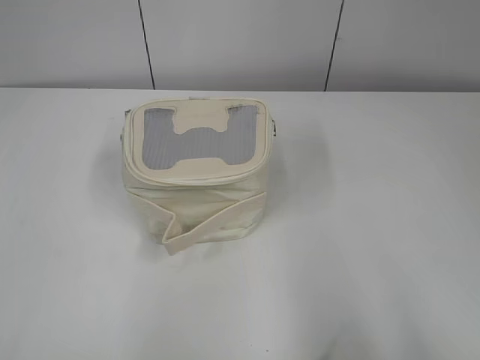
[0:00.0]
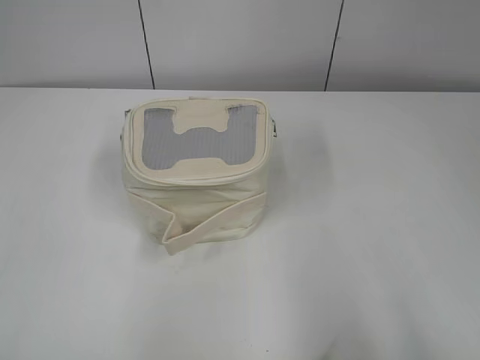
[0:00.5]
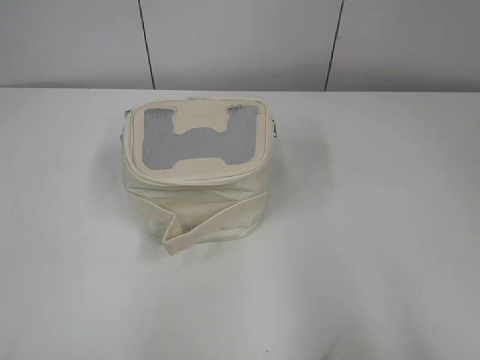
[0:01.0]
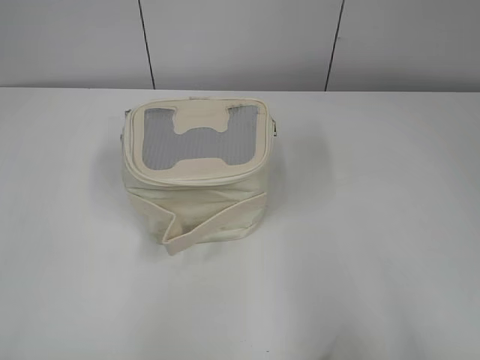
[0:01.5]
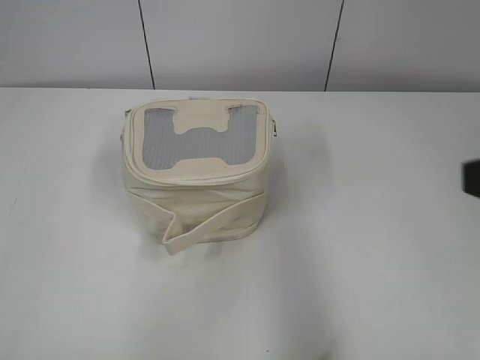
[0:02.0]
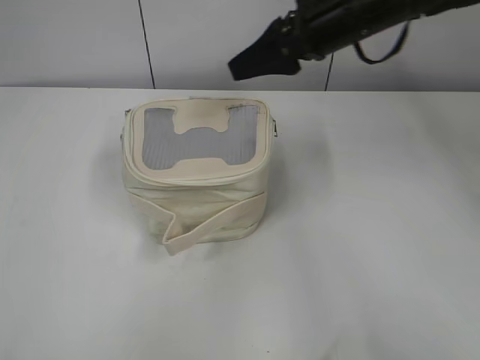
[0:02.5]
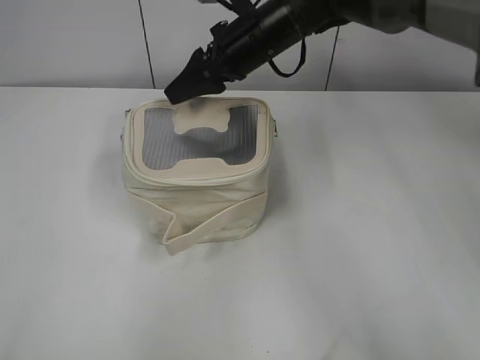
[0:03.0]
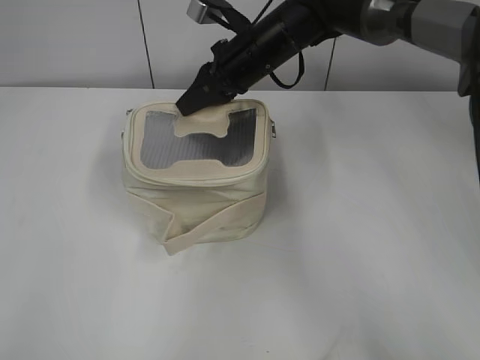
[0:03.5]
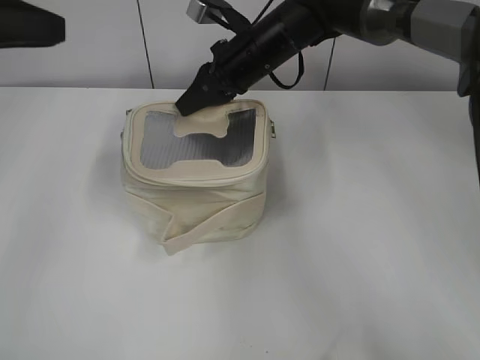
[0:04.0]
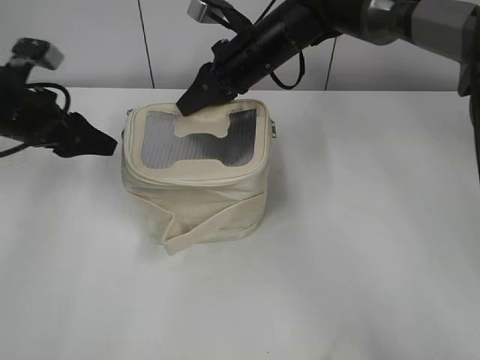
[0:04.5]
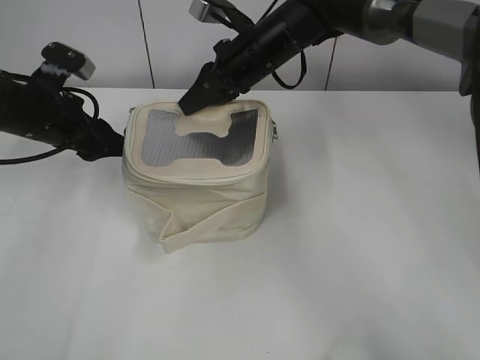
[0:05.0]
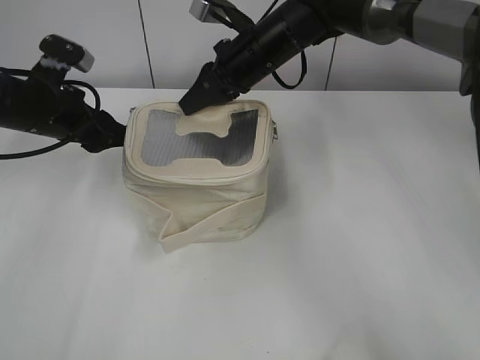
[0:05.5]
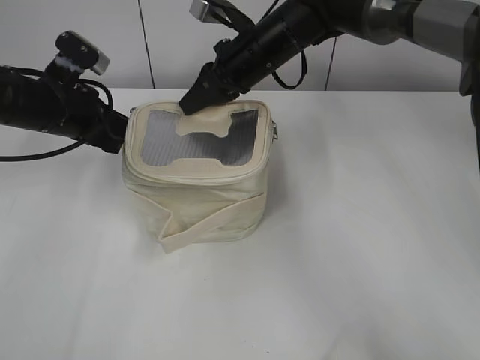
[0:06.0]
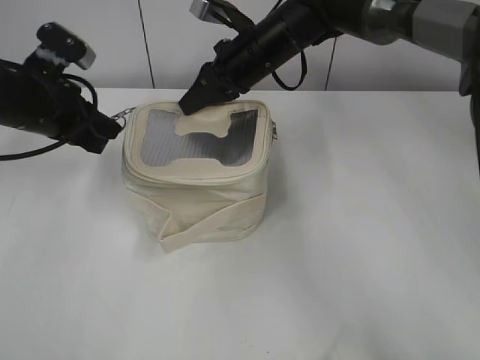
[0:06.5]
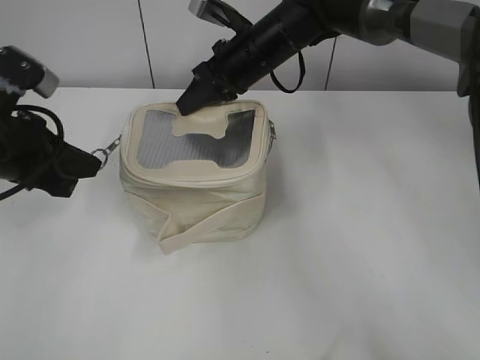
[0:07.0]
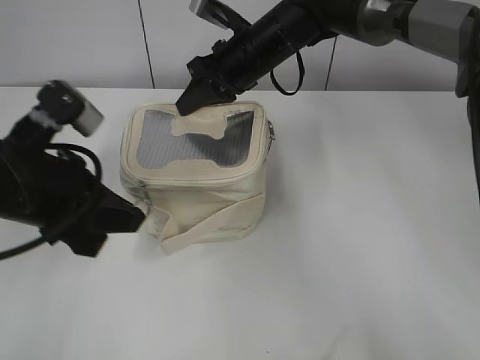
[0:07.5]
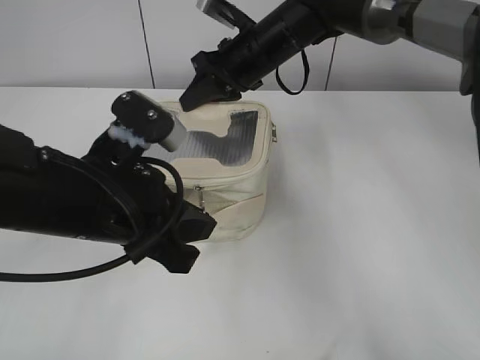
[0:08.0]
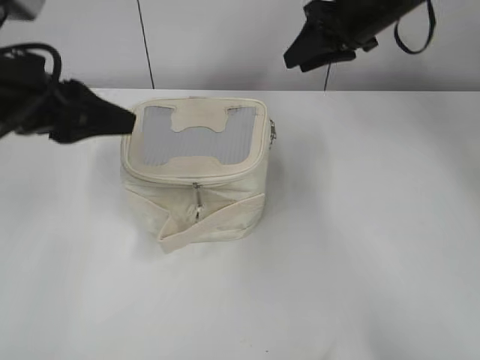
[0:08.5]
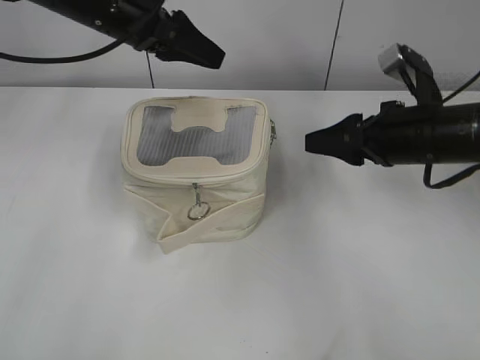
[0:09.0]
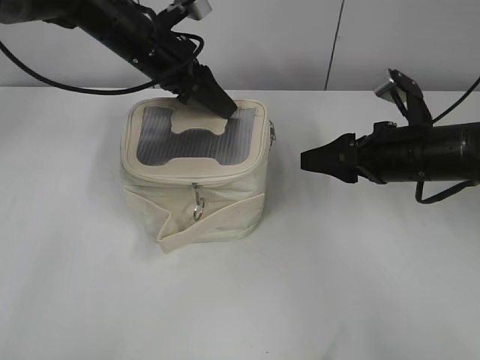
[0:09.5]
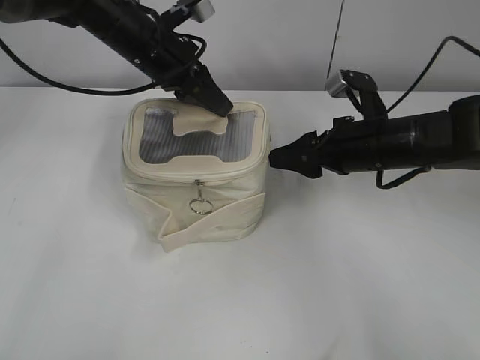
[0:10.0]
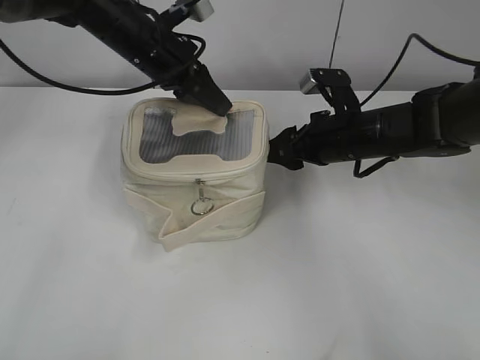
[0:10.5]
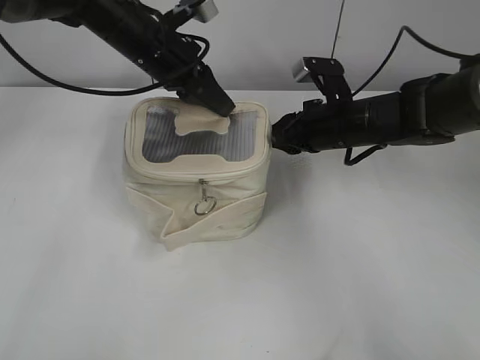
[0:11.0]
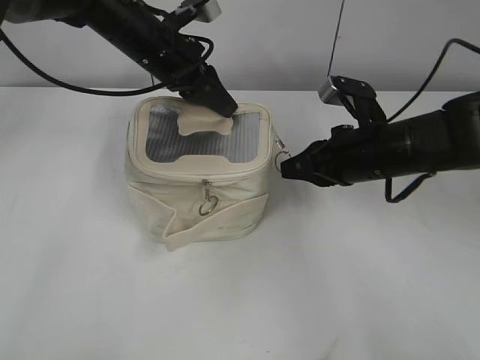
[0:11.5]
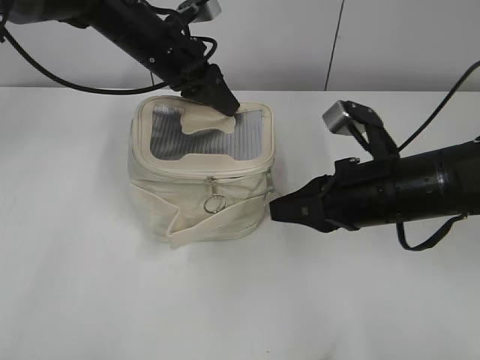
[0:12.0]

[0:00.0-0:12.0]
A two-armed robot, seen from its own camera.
Step, 0:00.0 to 0:08.0: Zip up the bag with your left hand.
0:02.0 to 0:04.0: The right gripper travels forward and to the left by about 40 cm, and closes. Meanwhile the left gripper travels forward by roughly 25 cm.
0:04.0 to 0:06.0: The left gripper travels downward and forward by roughly 20 cm, and opens, then closes once more.
0:06.0 to 0:08.0: The left gripper heads backward and to the right, covering roughly 20 cm.
0:08.0 to 0:10.0: The right gripper shifts approximately 20 cm to the right, backward and downward, and opens its fingers, while the left gripper heads forward, covering about 25 cm, and opens and closes again.
0:10.0 to 0:12.0: The right gripper goes about 10 cm backward, and closes its fingers.

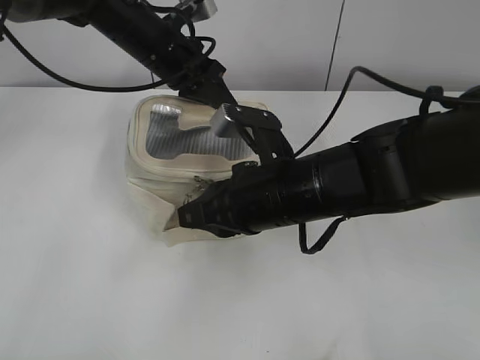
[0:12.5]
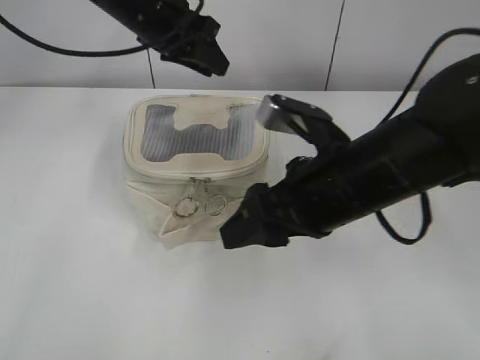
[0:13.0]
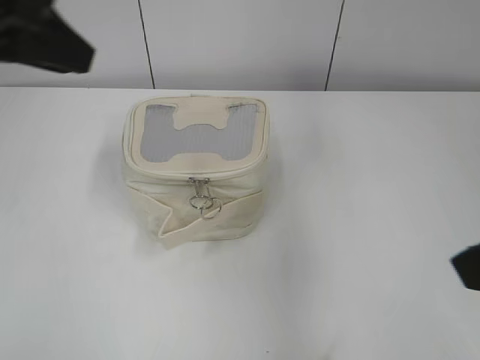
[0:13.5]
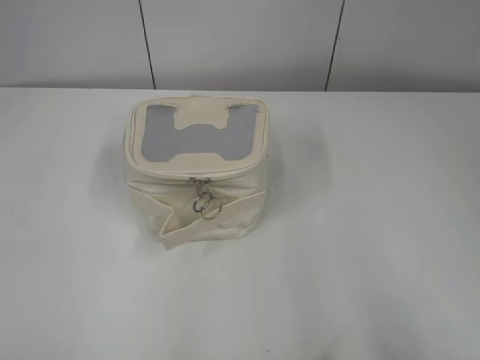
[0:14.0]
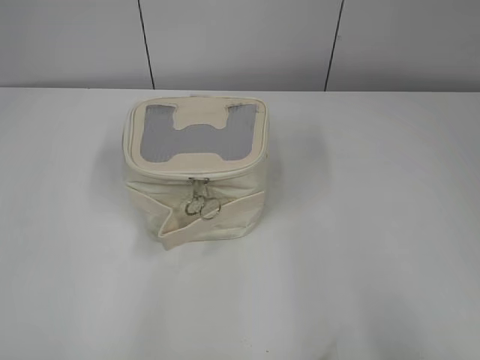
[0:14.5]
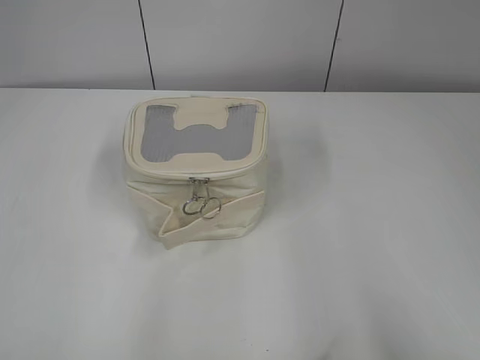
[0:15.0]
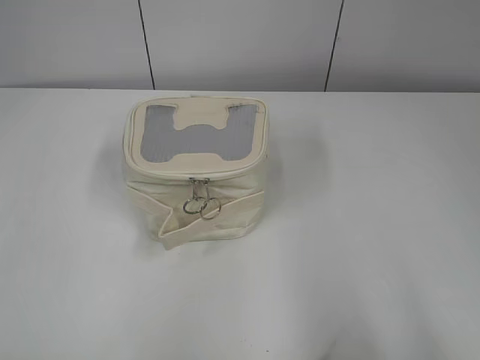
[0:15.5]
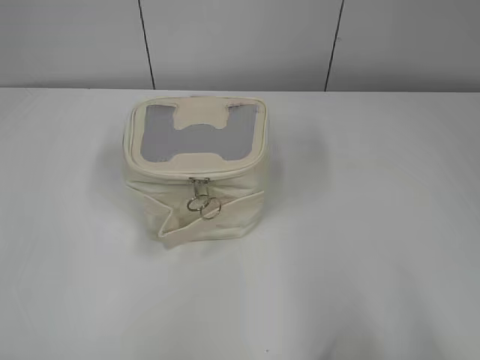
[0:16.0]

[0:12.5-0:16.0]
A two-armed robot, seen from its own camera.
0:12.5 to 0:14.5: The left gripper shifts approximately 50 cm backward and to the left, and opens, while the right gripper travels to the right, backward and upward by approximately 40 cm, and opens its fingers.

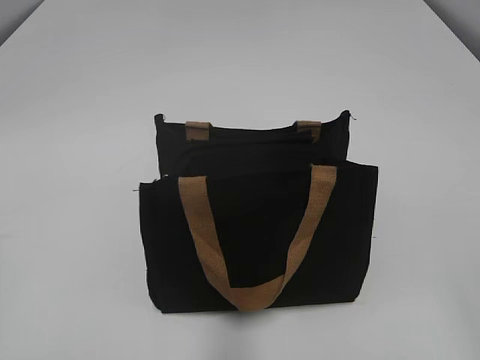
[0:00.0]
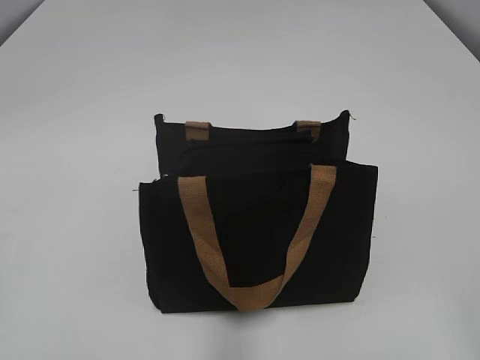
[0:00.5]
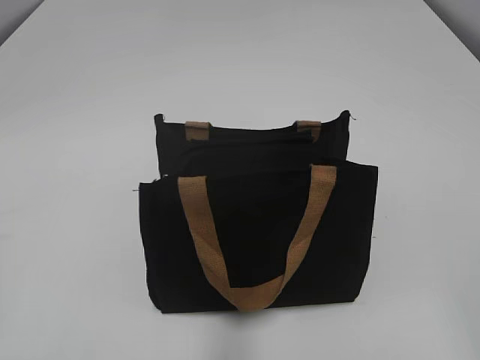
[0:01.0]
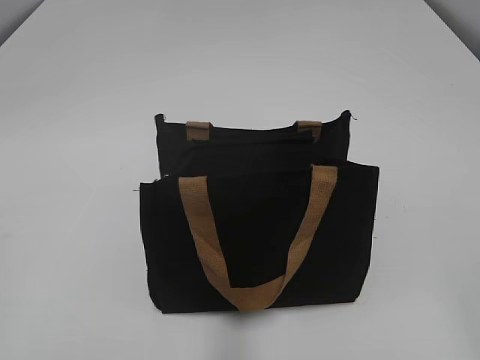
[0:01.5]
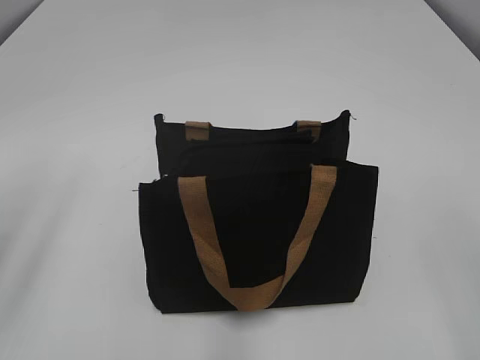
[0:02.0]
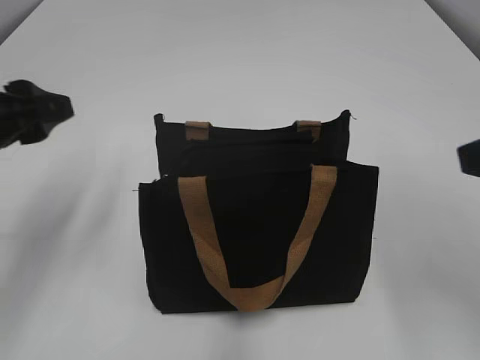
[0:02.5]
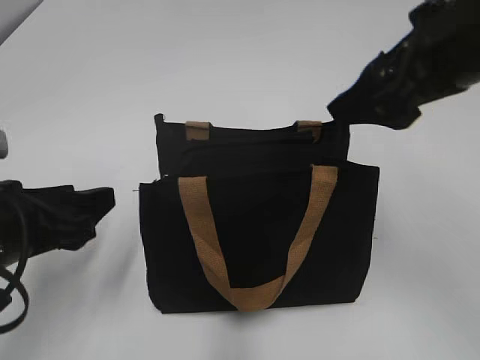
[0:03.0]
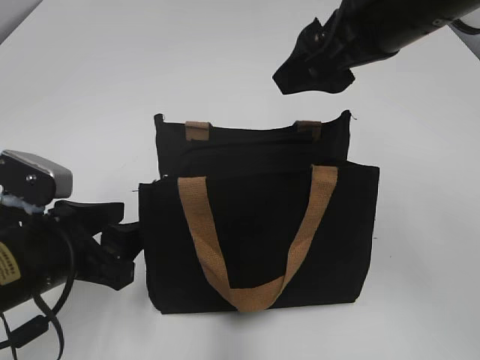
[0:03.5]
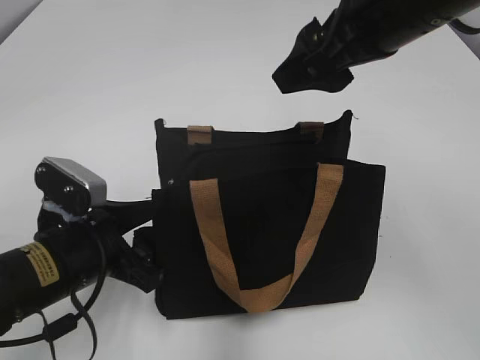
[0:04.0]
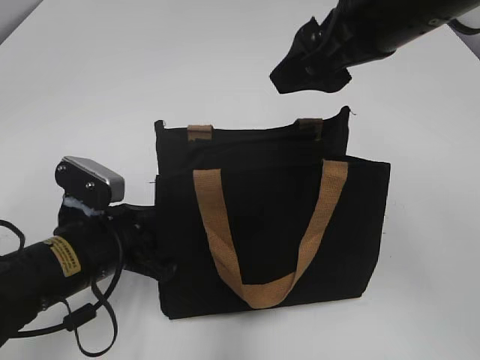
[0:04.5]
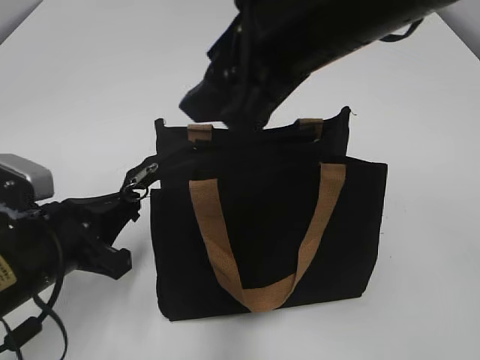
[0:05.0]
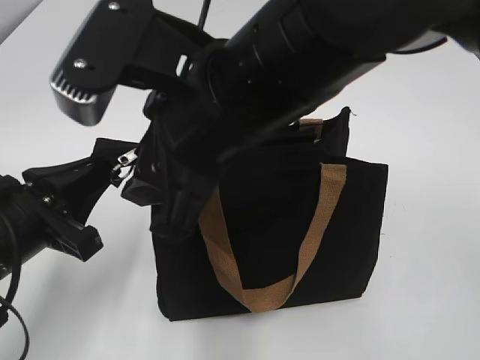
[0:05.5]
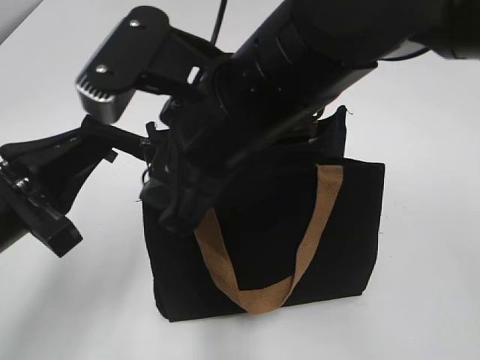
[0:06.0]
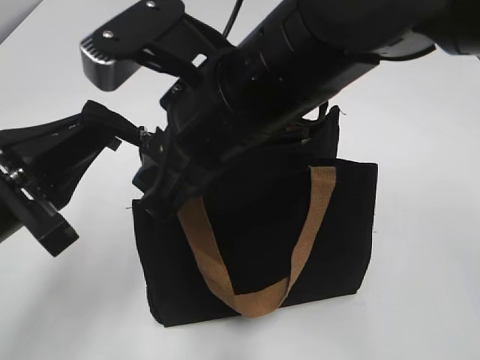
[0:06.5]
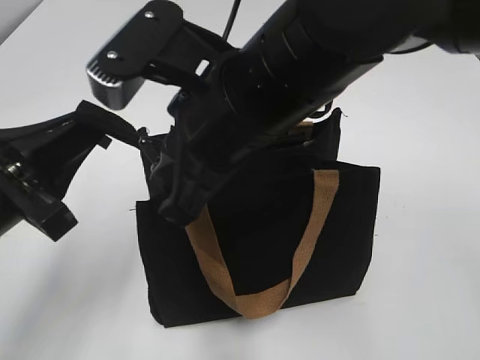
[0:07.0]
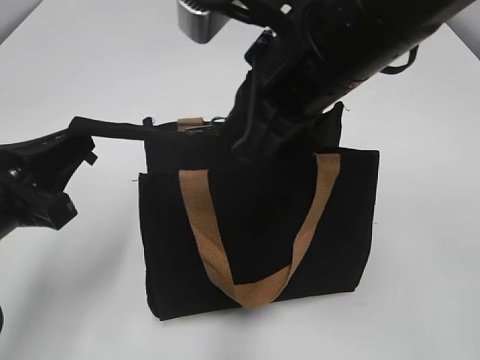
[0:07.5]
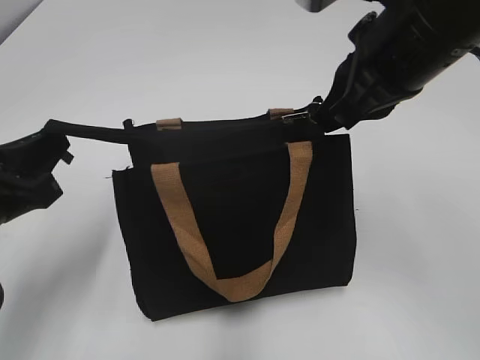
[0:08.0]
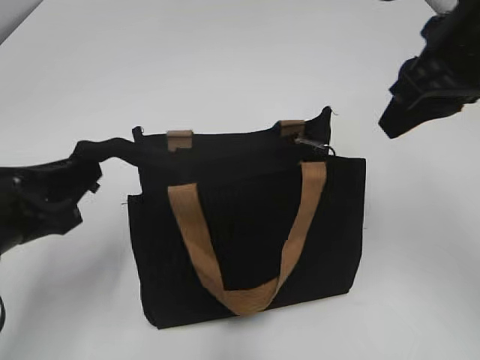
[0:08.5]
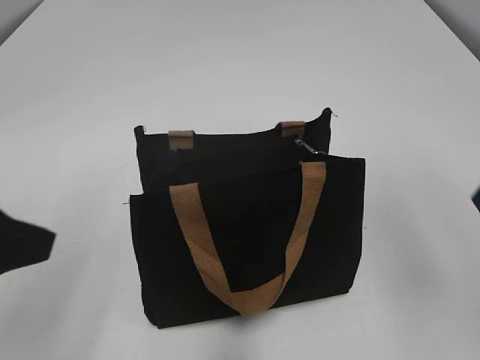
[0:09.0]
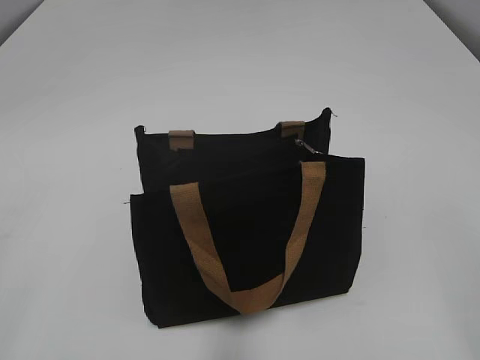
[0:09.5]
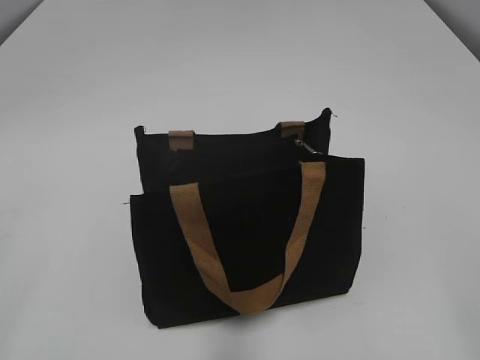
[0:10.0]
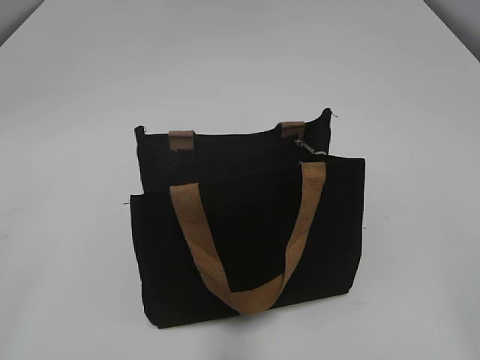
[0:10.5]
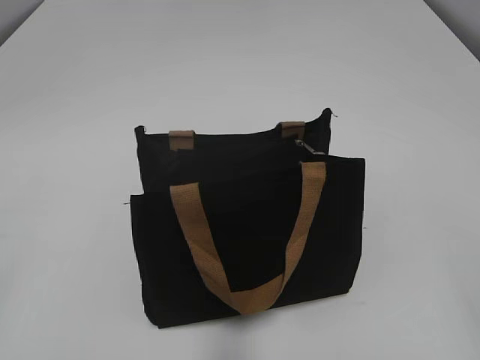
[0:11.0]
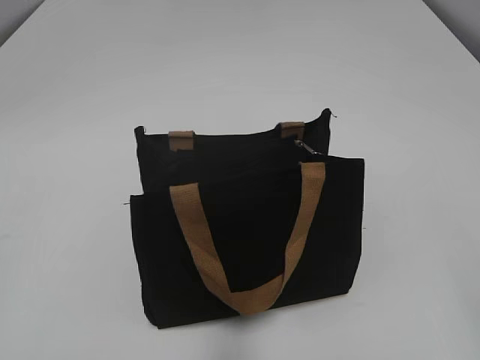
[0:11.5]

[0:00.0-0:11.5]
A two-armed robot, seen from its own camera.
Step, 0:00.0 to 0:08.0: Zip up the bag with your right hand.
0:02.0 to 0:04.0: The left gripper is displaced downward, to the right and forward by roughly 25 cm. The right gripper travels forward and to the left by about 30 cm.
0:04.0 to 0:06.0: The right gripper shifts roughly 15 cm to the left, backward and downward, and closes its fingers, while the left gripper shifts about 10 cm upward, and closes its fingers.
0:06.0 to 0:07.5: The right gripper travels to the right by approximately 5 cm, and closes.
0:07.5 to 0:09.5: The right gripper travels backward and to the right by some 30 cm, and opens up. Meanwhile the left gripper travels backward, to the left and upward by some 20 cm, and opens up.
